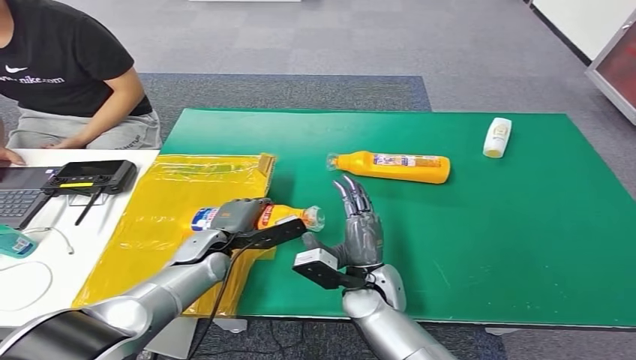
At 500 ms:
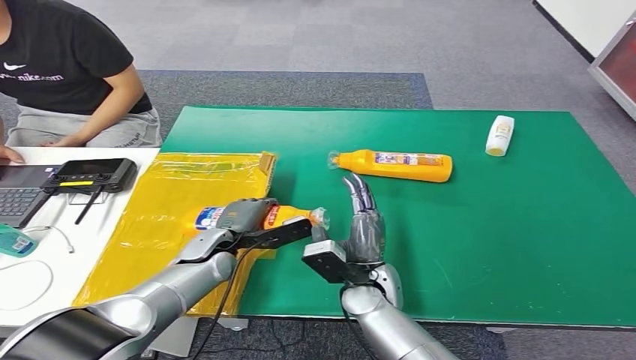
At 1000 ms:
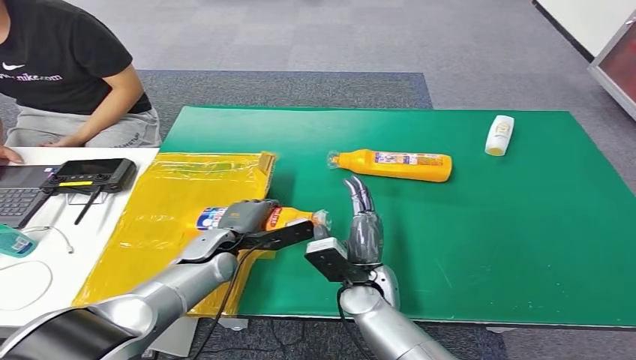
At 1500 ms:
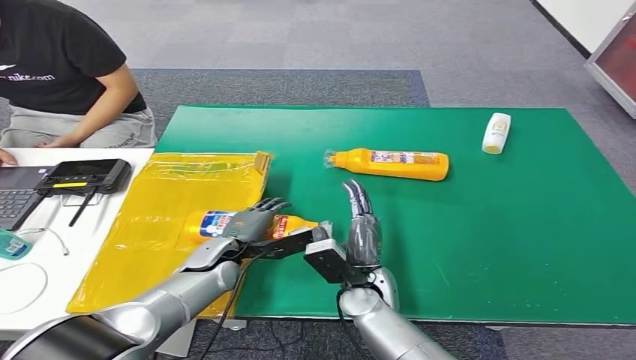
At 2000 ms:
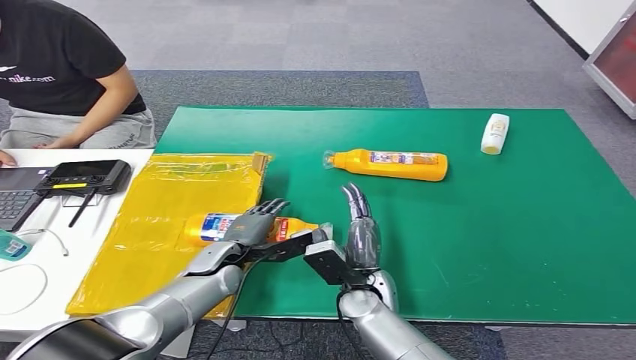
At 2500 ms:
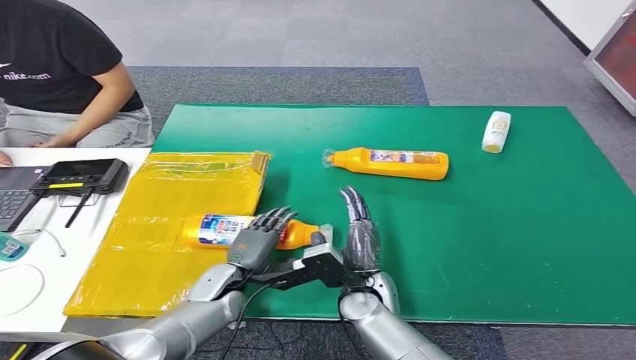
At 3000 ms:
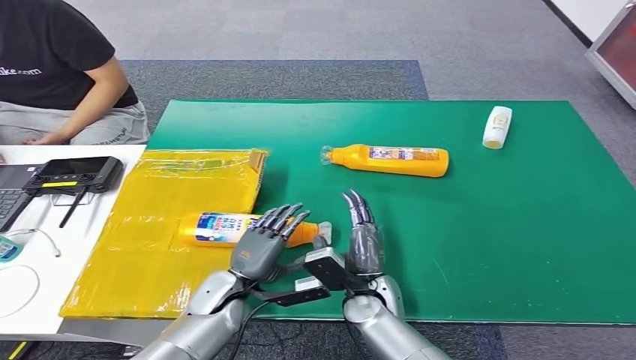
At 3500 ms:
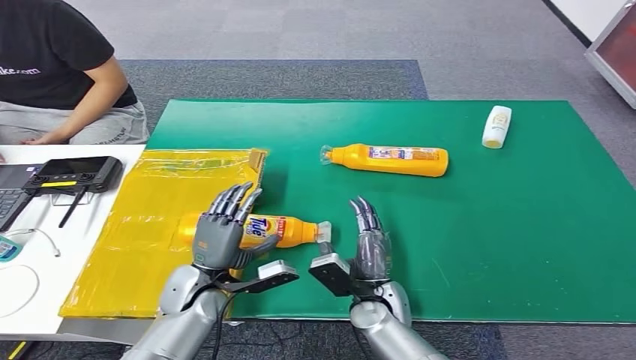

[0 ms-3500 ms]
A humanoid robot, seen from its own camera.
Step, 0 ms to 3500 ms: Turn the bottle to the front side.
0 ms to 2000 ms: The hands stay close to where they were, moving slightly.
